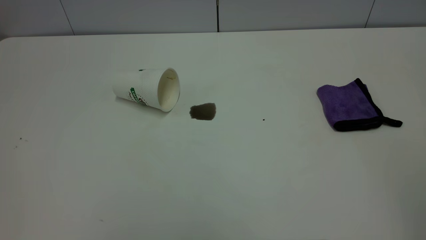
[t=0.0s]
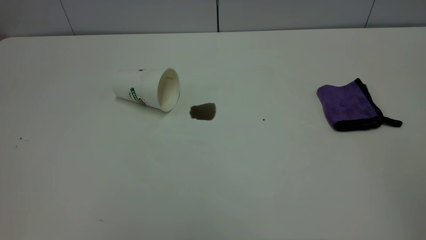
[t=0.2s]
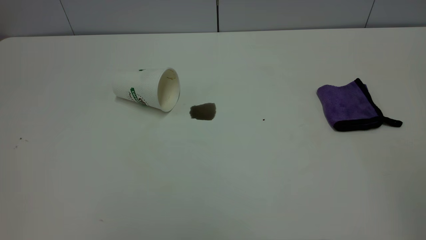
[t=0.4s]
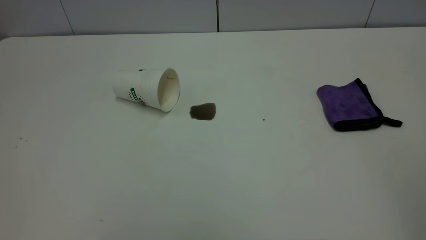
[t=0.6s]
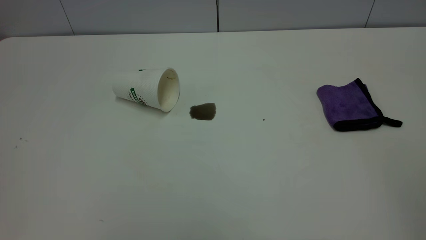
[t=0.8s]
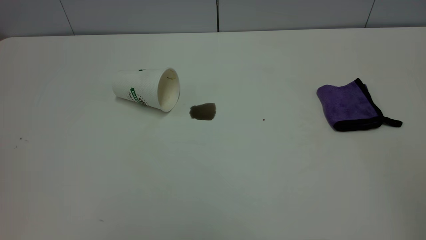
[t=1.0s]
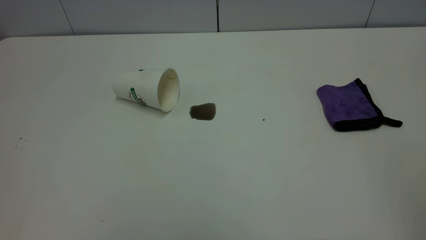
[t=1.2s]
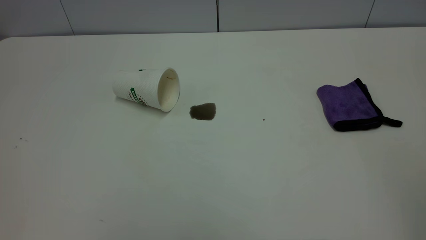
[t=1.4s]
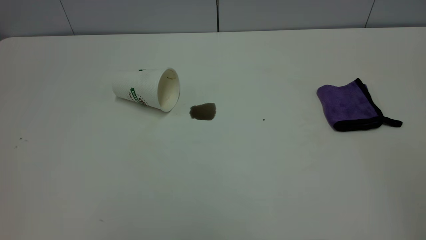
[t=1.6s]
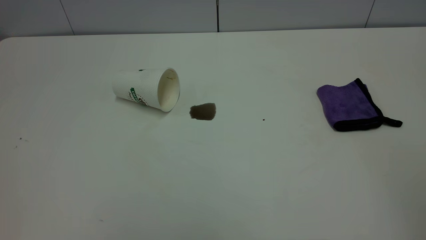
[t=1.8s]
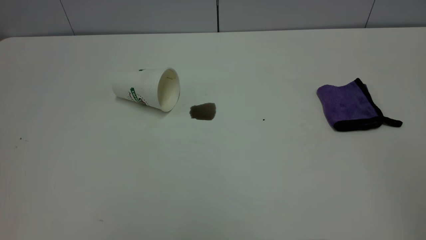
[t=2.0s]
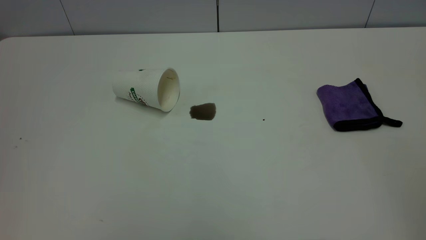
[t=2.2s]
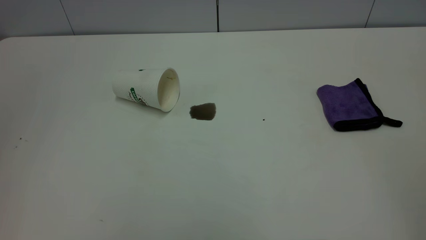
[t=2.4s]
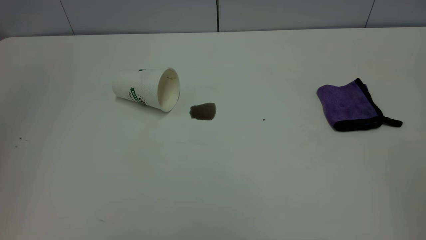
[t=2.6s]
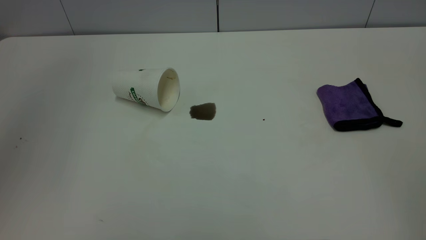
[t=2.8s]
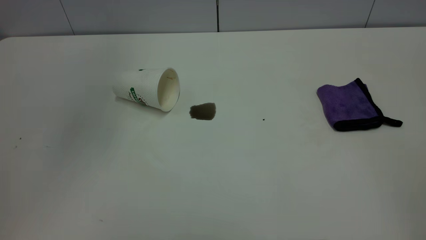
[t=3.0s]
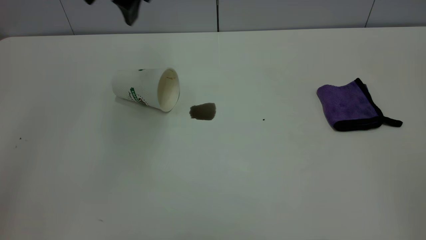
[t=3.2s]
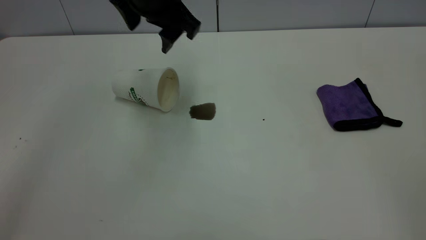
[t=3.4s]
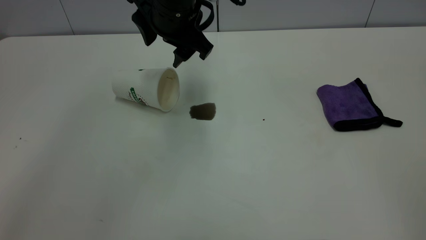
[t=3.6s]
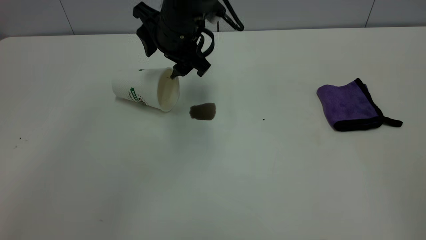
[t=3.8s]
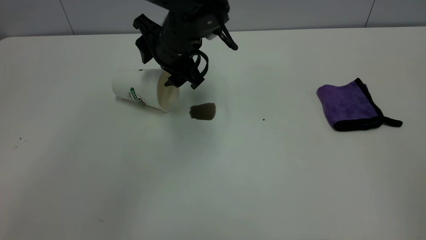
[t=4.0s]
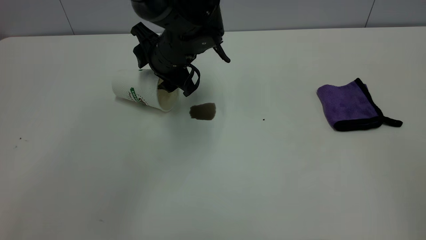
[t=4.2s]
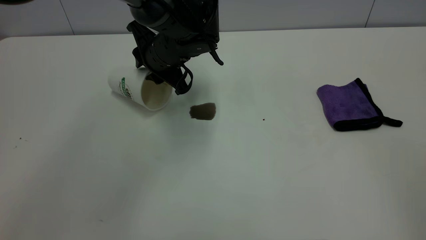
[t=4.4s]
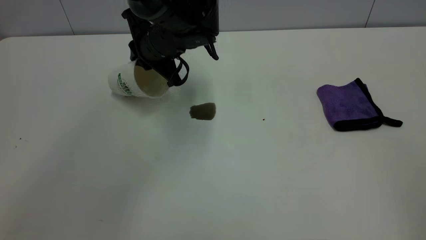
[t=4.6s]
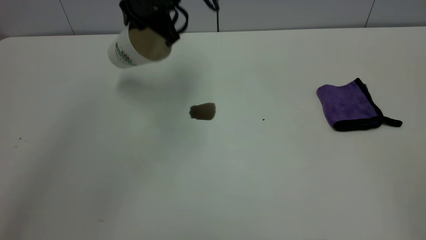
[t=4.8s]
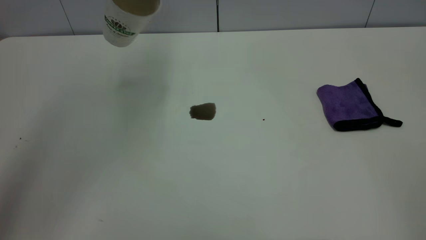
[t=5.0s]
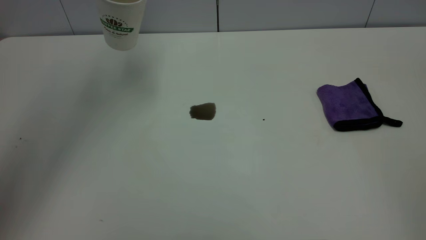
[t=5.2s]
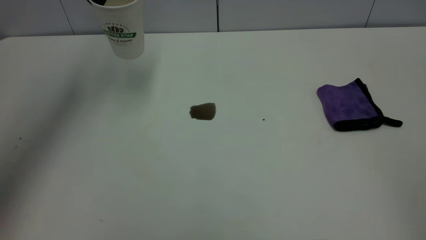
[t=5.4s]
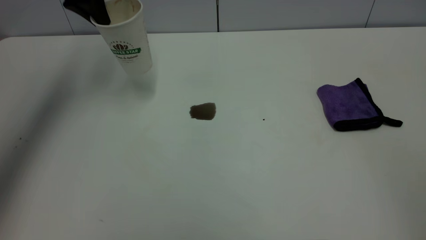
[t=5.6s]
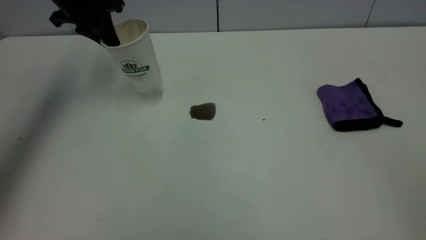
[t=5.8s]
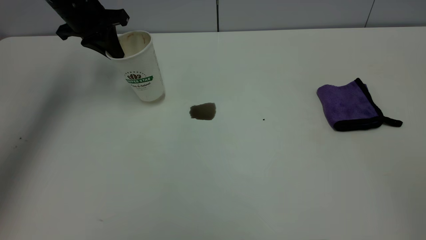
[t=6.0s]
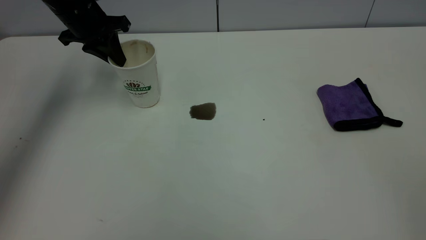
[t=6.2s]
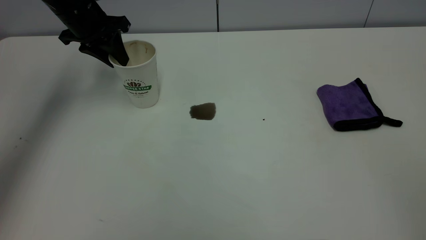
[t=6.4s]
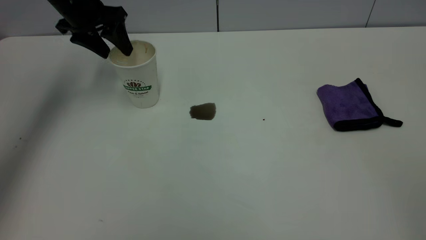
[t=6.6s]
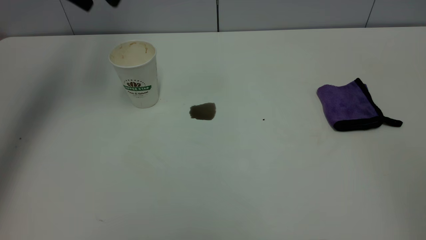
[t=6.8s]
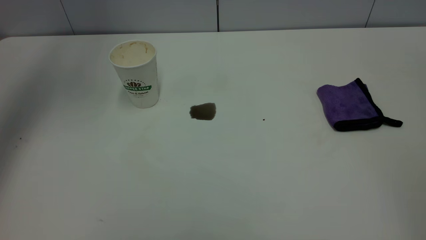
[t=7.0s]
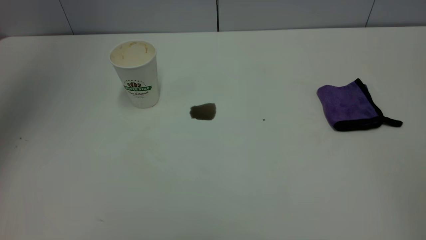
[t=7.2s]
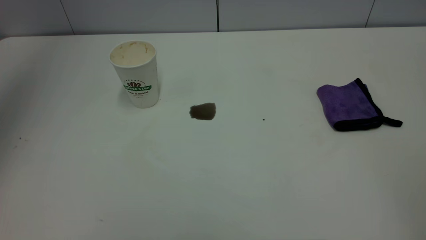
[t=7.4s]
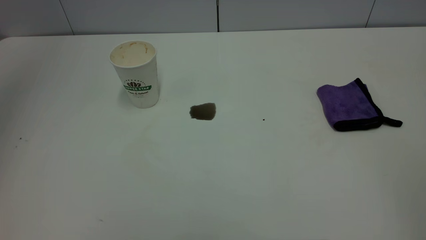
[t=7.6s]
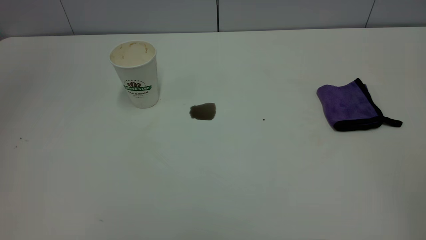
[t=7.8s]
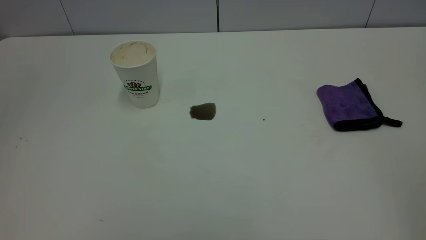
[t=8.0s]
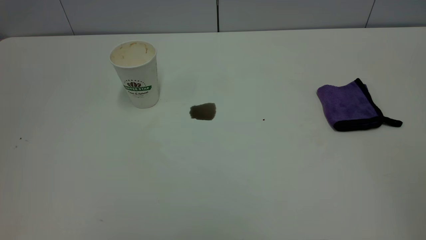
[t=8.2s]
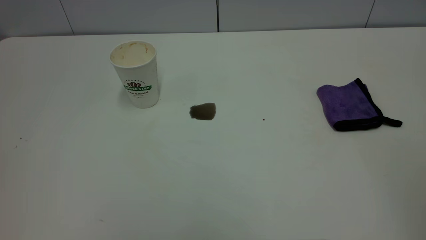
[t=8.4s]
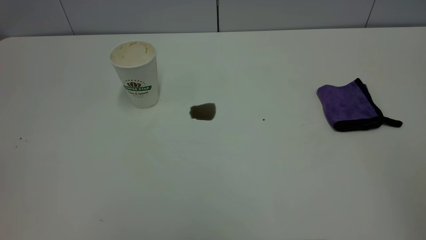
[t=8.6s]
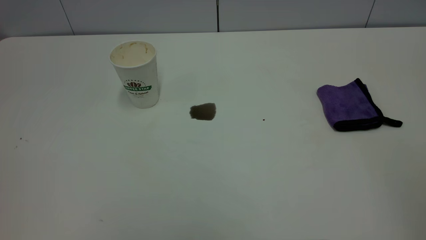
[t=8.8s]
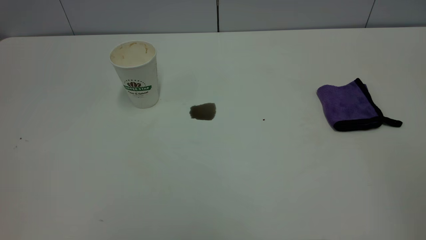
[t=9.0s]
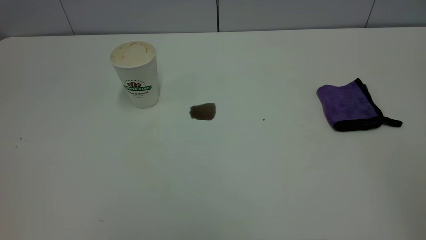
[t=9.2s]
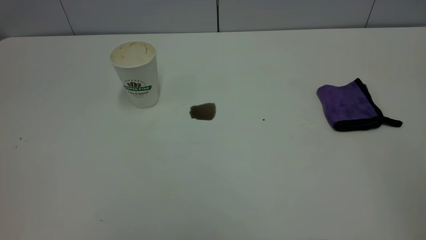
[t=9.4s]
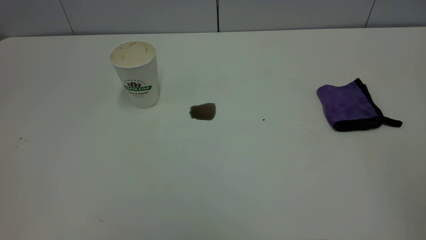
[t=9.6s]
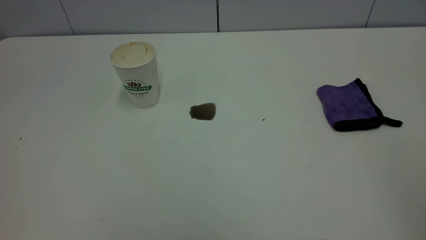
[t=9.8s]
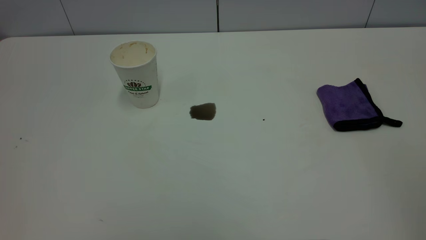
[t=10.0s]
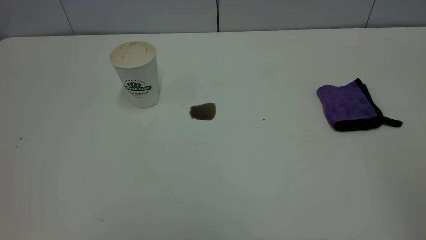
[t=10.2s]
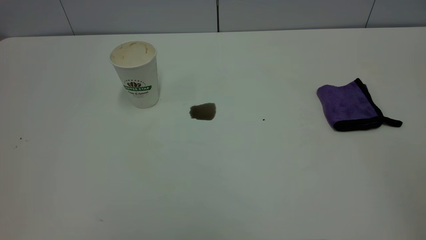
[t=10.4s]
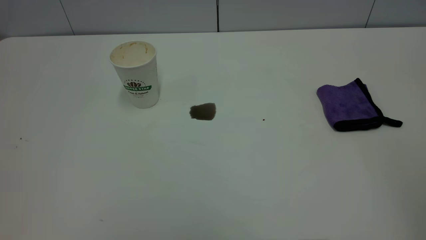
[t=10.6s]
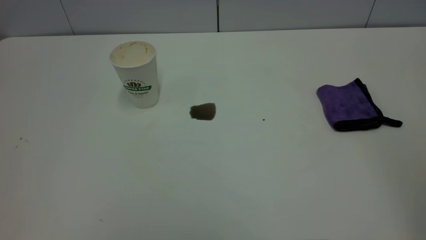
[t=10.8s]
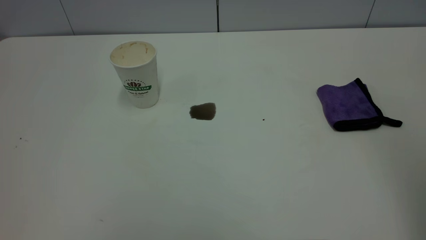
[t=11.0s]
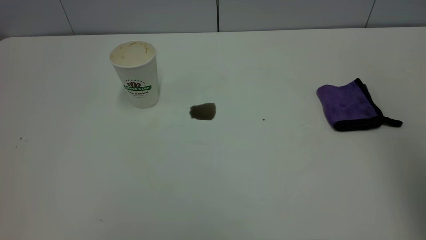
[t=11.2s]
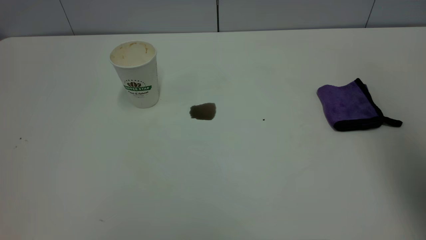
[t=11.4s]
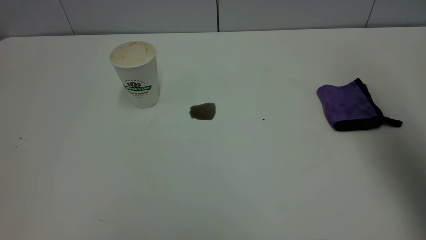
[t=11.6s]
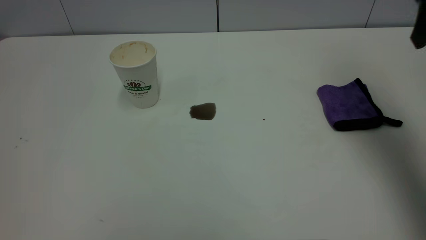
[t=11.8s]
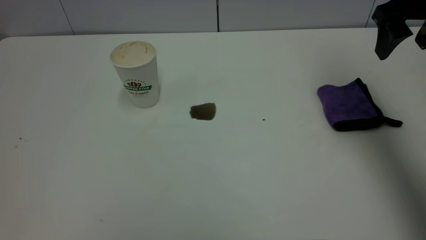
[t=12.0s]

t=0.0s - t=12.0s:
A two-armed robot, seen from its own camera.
Task of the whole recording: the left gripper pick up the fallen cup and place it upright, the right gripper grasp the purple rag and wipe the coffee stain on the table, the right gripper put the purple rag back in its original position.
Step, t=0.0s - t=6.6s: Stand the paper cup upright.
t=0.0s - t=1.6s: Neither gripper changes place.
t=1.6s - t=3.0s: The left gripper is displaced forward by approximately 35 cm, and opens its fingers.
t=3.0s - t=4.4s: The left gripper shifts roughly 25 cm downward and to the right, and closes its fingers.
t=4.4s - t=6.0s: The left gripper moves to the left, about 20 cm, and goes upward and returns, some 20 cm each way.
t=6.0s - t=7.6s: The left gripper shifts approximately 40 cm upward and backward, and opens up.
t=9.0s - t=10.4s: The two grippers keep their place.
t=10.4s - t=12.0s: The right gripper shifts roughly 40 cm forward, and opens.

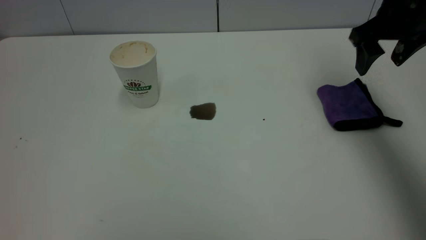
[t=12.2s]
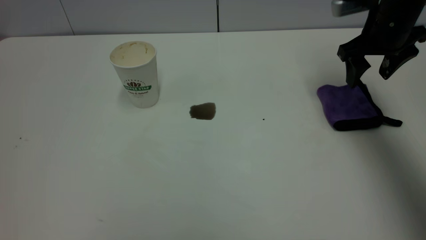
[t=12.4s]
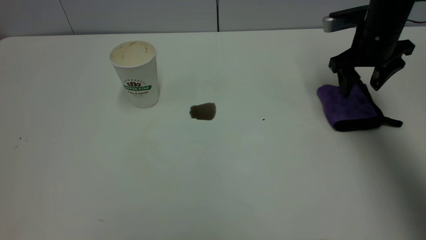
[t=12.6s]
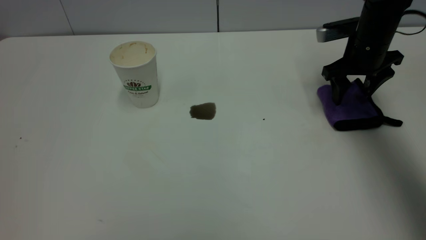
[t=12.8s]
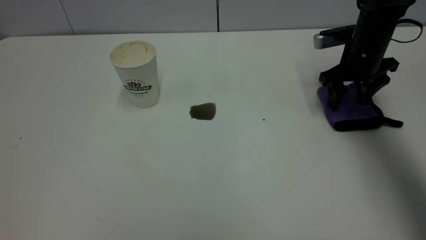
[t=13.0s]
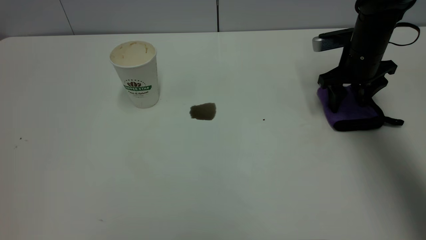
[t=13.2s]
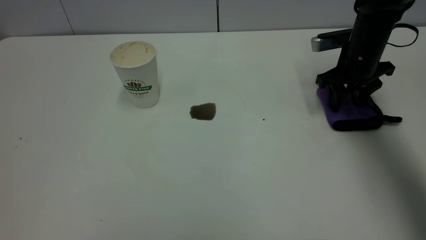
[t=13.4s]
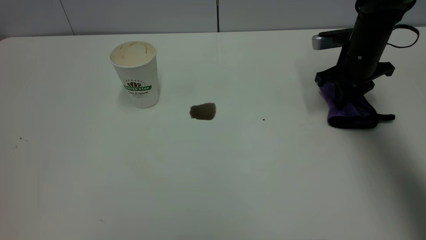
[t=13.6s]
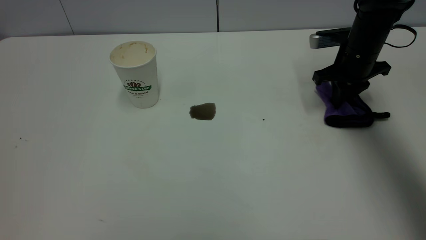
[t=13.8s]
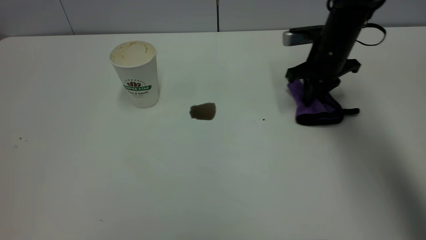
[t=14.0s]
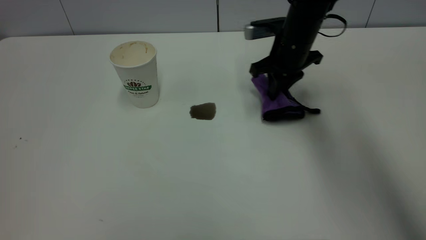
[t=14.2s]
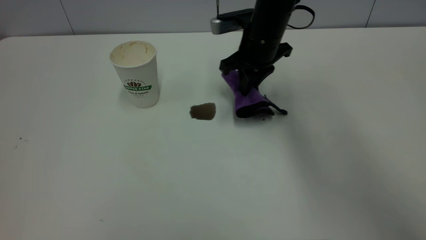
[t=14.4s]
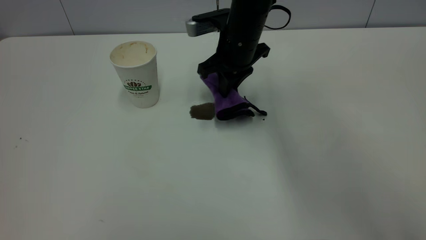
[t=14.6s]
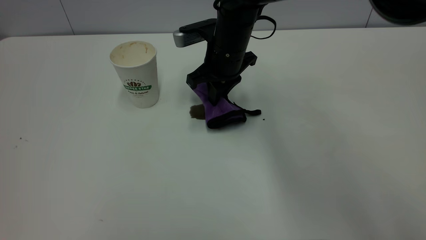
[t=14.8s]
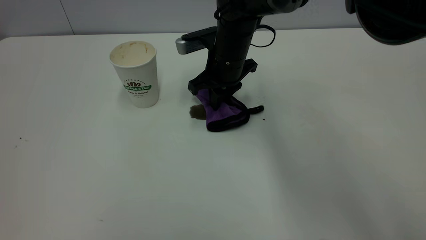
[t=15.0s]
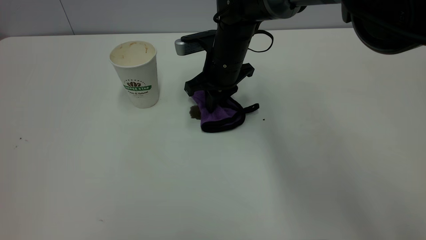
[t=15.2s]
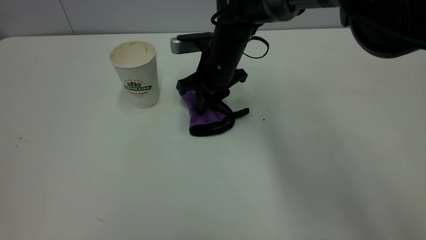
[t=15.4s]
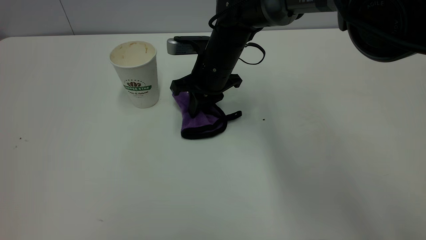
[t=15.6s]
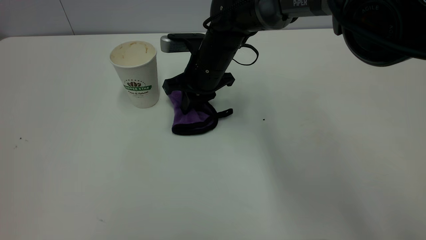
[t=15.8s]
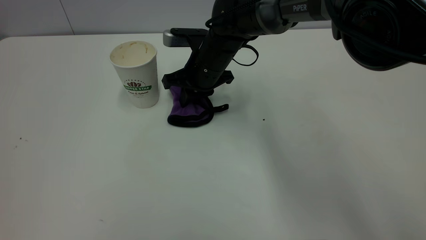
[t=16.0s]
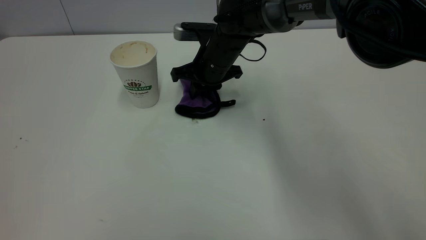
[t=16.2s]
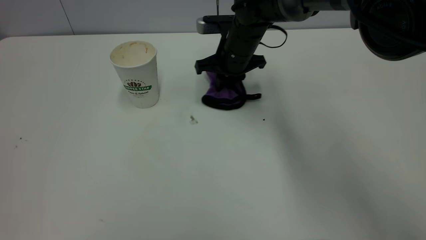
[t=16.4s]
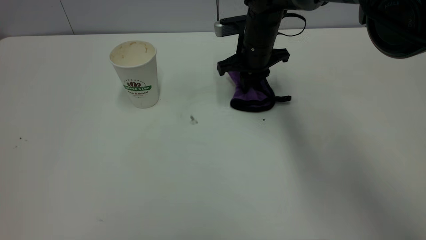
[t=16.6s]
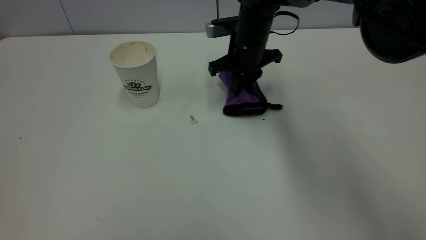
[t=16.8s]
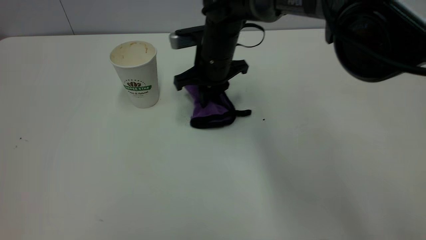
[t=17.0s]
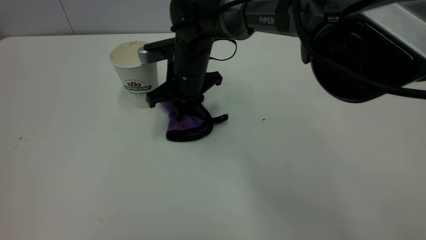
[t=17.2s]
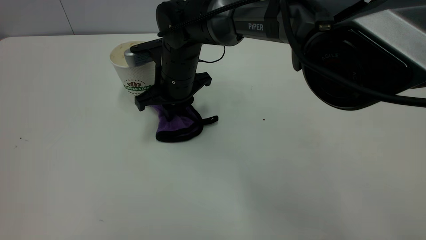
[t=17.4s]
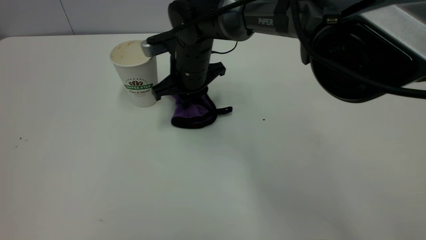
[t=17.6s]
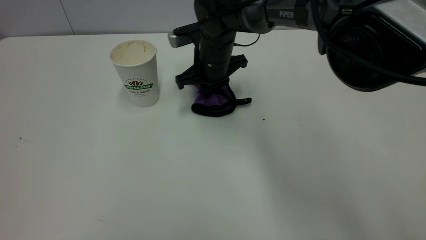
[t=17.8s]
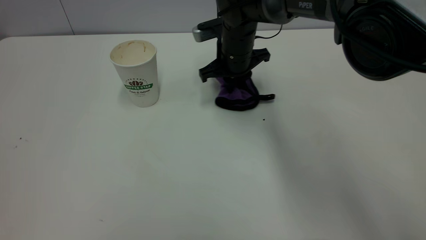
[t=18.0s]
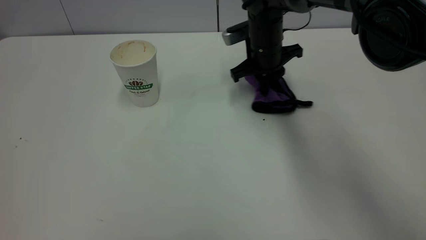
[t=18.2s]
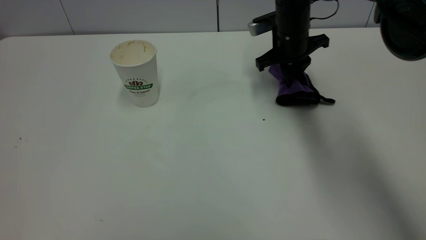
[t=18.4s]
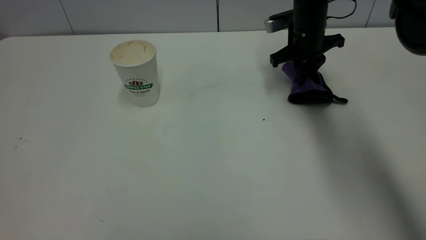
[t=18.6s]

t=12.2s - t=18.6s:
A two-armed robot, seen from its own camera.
Task of the whole recording: the left gripper pick up the fallen cup and place it upright, the right gripper grasp the purple rag and wipe the coffee stain on the table, the right gripper put the purple rag back in its original position.
t=12.2s - t=13.8s: The right gripper moves downward and forward, about 15 cm, and closes.
t=13.8s - t=15.4s: The right gripper shifts roughly 25 cm to the left.
t=15.4s - t=17.0s: The right gripper reaches roughly 5 cm to the right, then returns.
t=17.0s - t=18.6s: The right gripper is displaced to the right and forward by approximately 20 cm.
